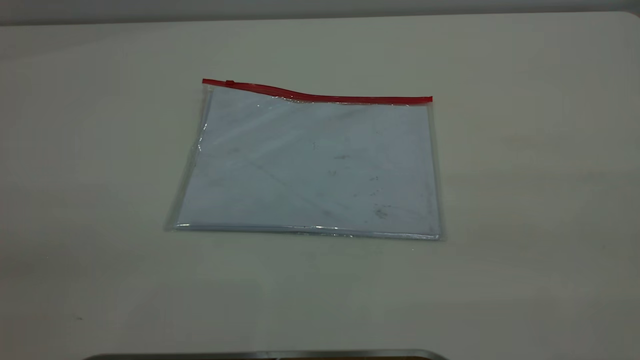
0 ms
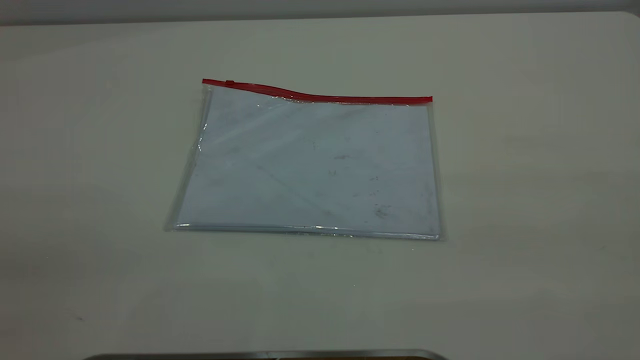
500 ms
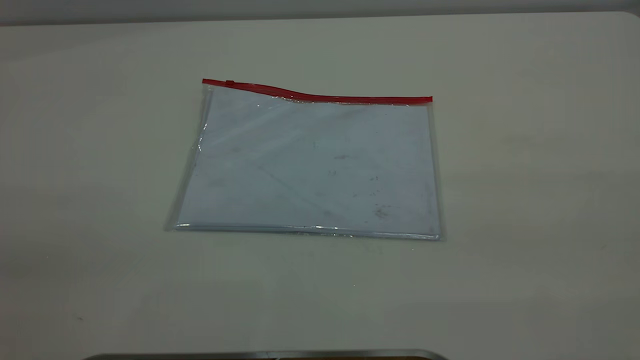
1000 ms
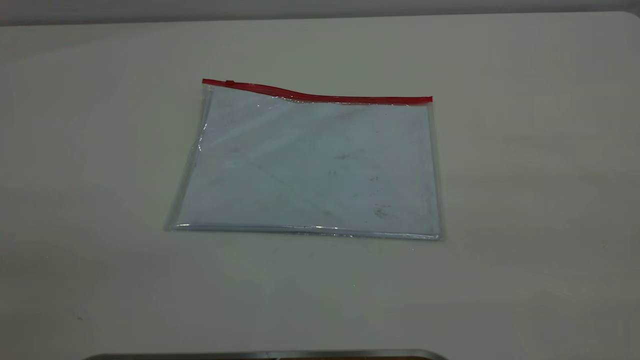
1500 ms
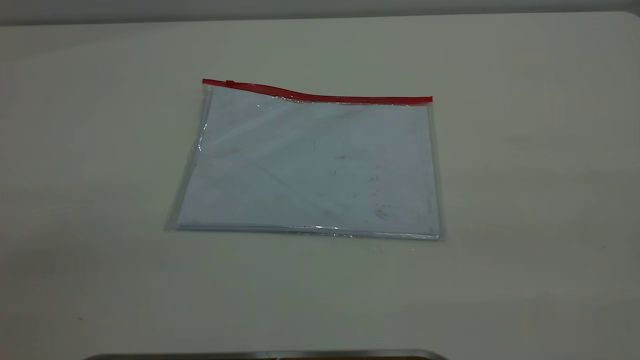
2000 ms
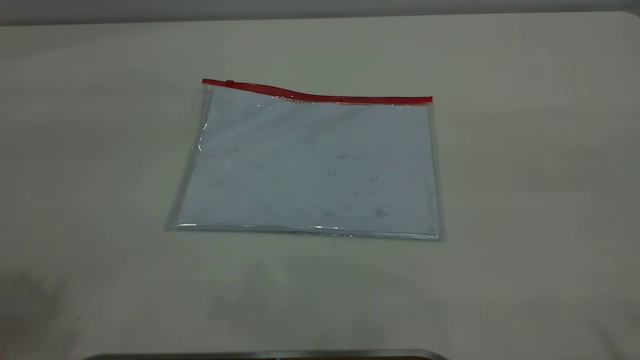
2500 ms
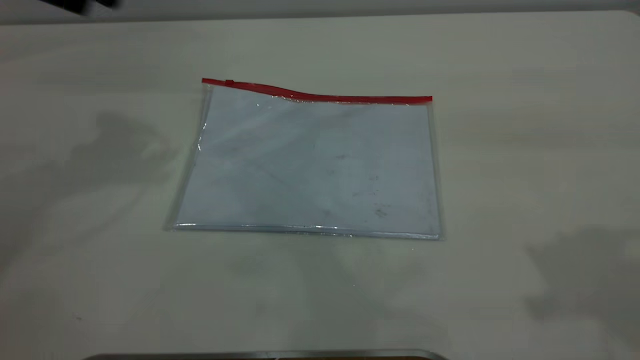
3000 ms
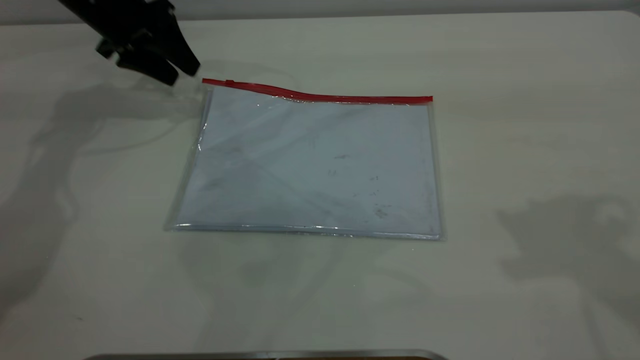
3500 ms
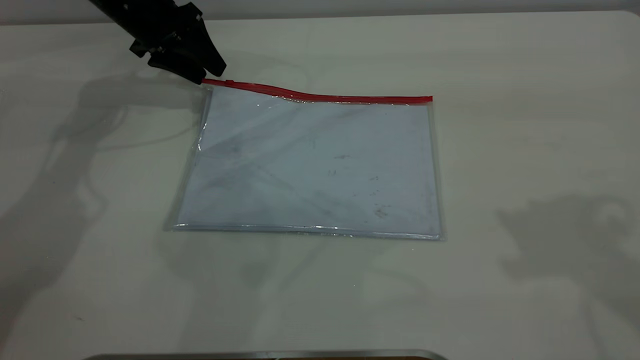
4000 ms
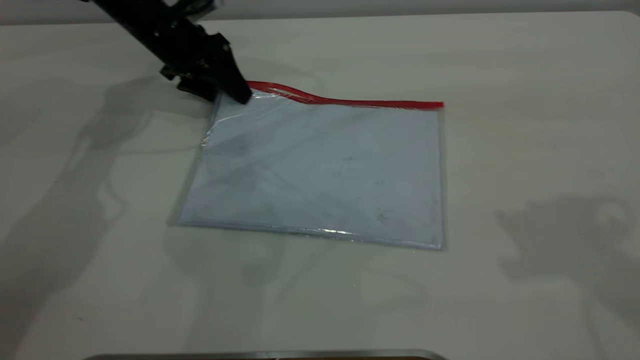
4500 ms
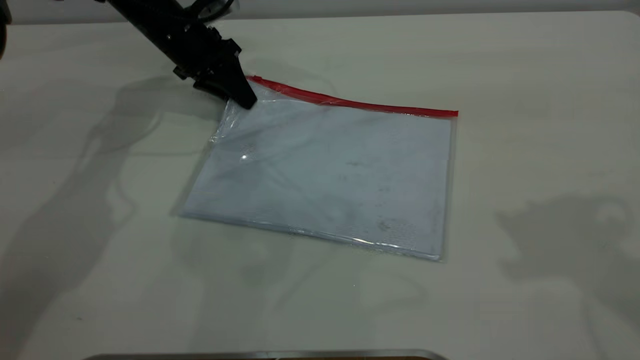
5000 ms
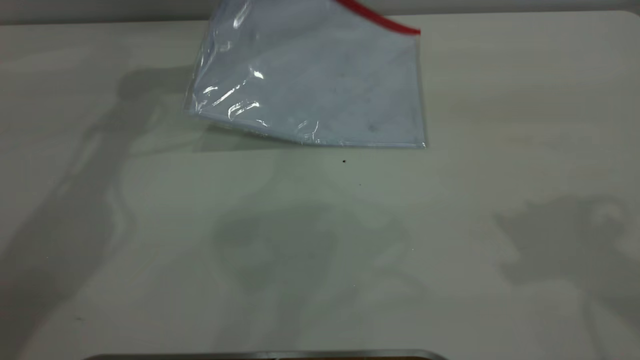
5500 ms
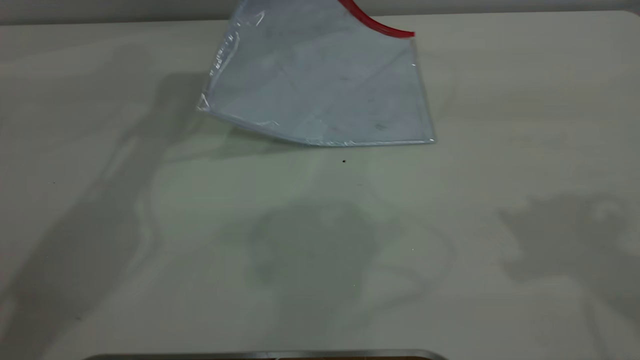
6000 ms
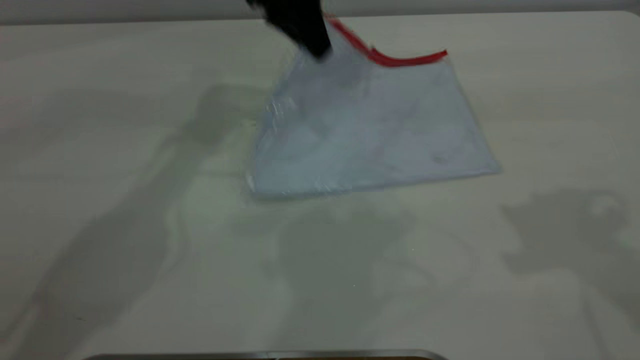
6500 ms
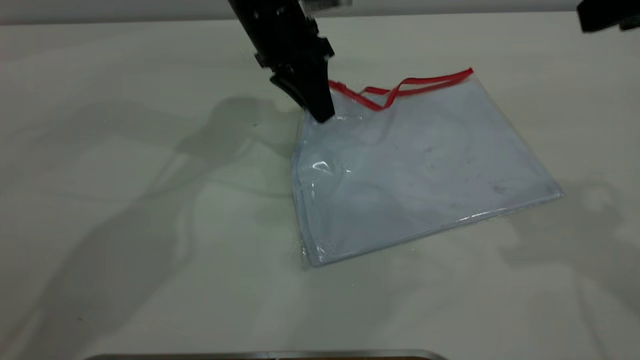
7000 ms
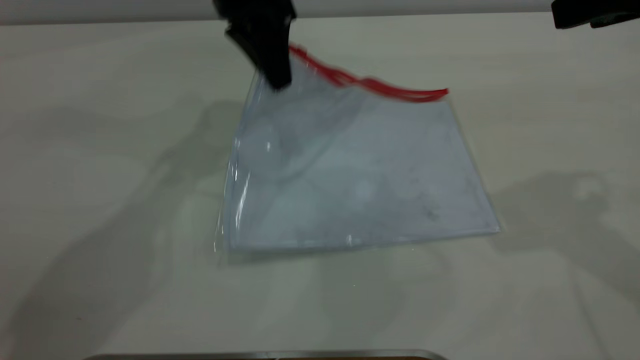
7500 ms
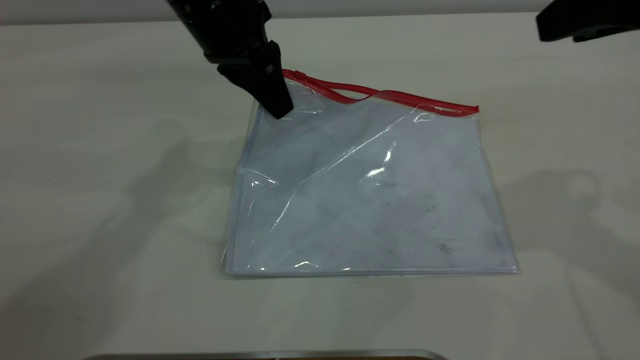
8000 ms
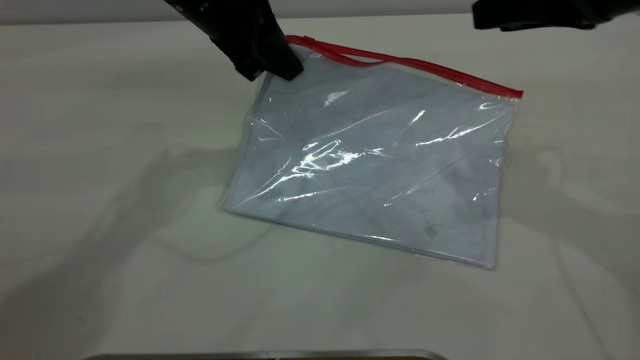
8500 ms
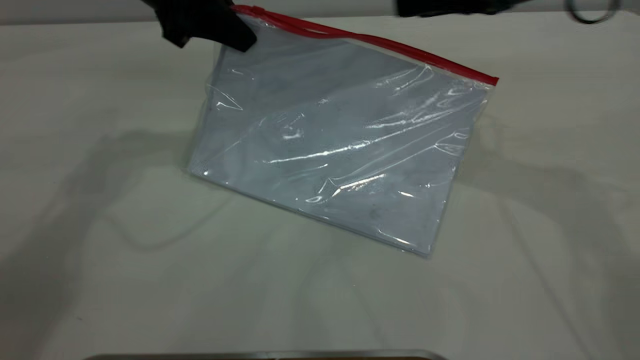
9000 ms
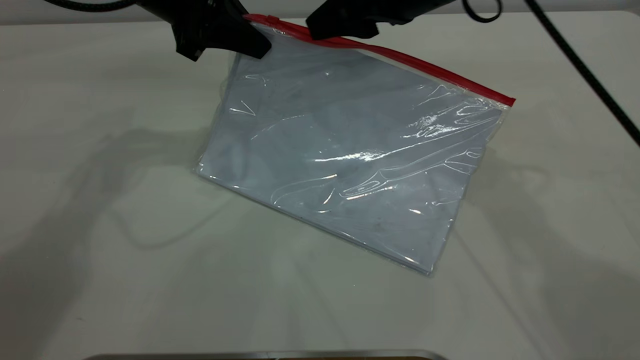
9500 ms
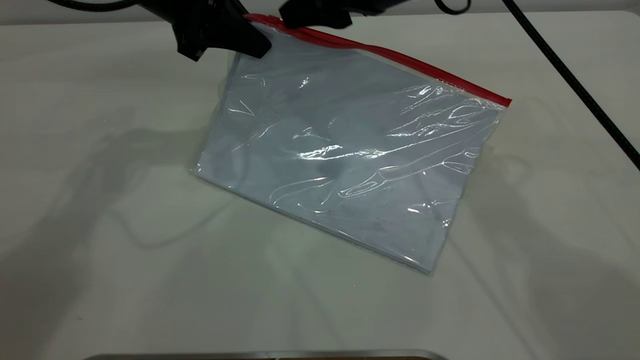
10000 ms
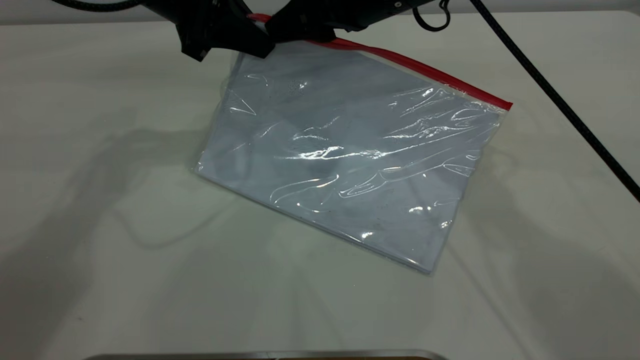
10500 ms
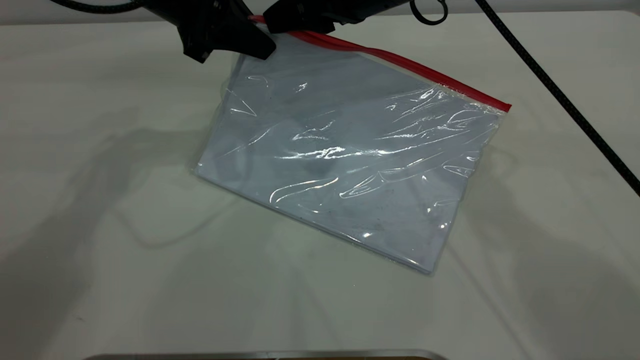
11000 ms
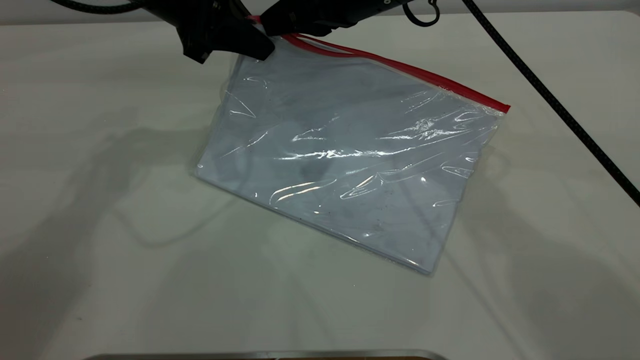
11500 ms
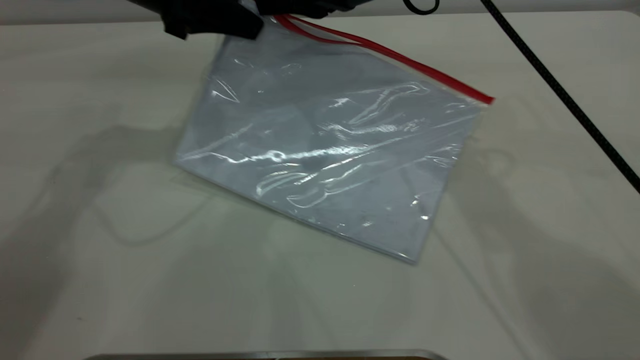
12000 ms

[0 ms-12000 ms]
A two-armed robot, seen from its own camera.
Step, 0 ms to 5000 ms: Pick up the transparent plastic bag with the left gripper.
0 ms to 2000 ms: Neither gripper changes place.
2000 ms to 4000 ms: The left gripper goes about 60 cm forward and downward.
4000 ms to 6000 ms: The left gripper moves upward and to the right, approximately 20 cm, and closes its fingers.
6000 ms to 8000 ms: The left gripper goes about 15 cm backward; the right gripper shifts roughly 5 cm downward.
8000 ms to 10000 ms: The right gripper is displaced to the left and forward by approximately 20 cm, while the left gripper is displaced to the left by roughly 5 cm.
10000 ms to 12000 ms: The right gripper closes its fingers.

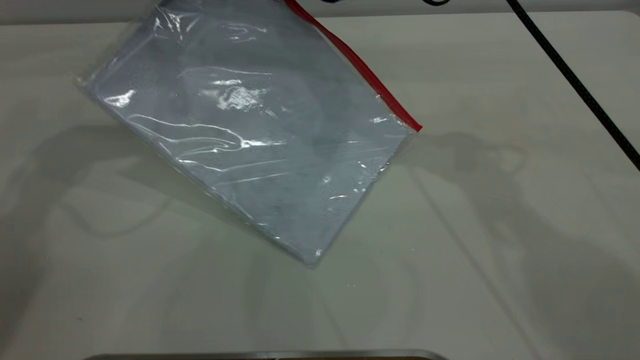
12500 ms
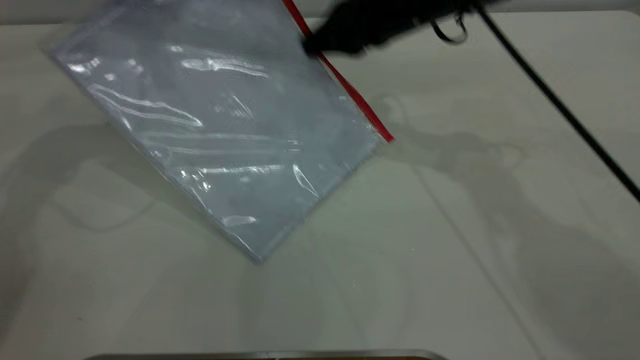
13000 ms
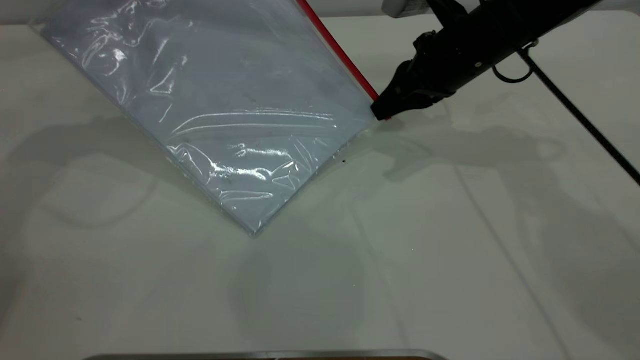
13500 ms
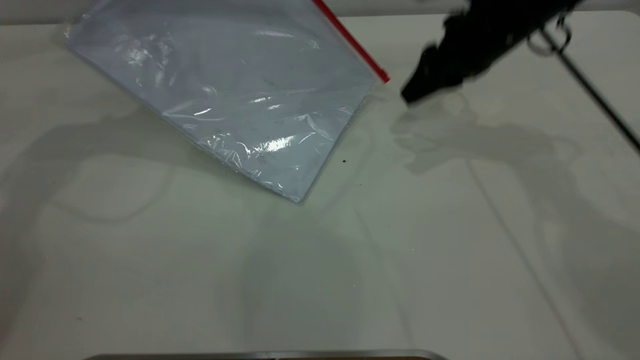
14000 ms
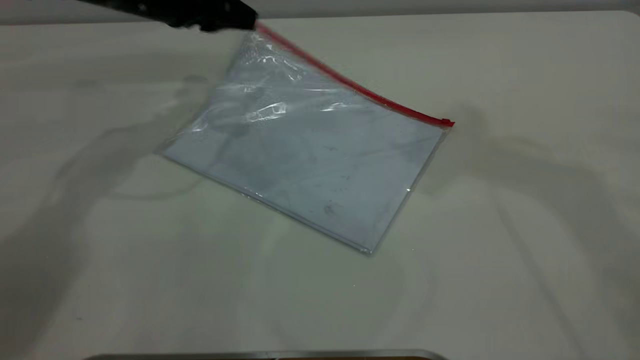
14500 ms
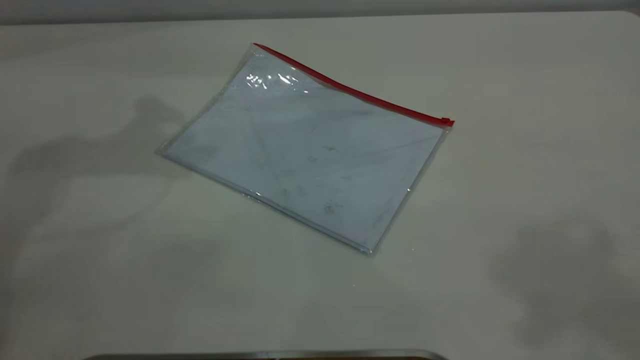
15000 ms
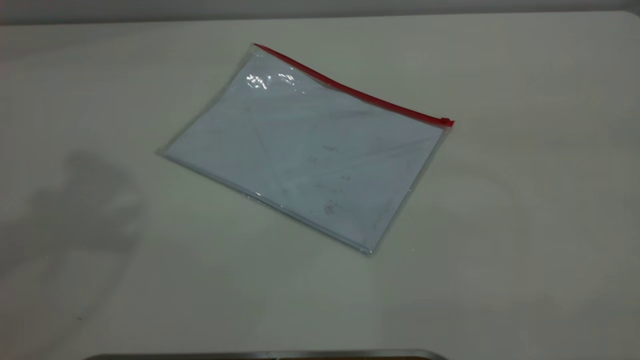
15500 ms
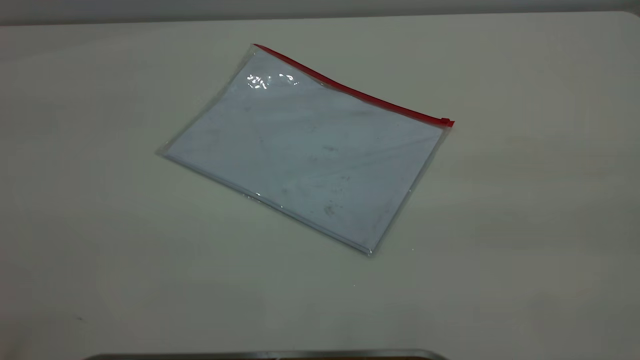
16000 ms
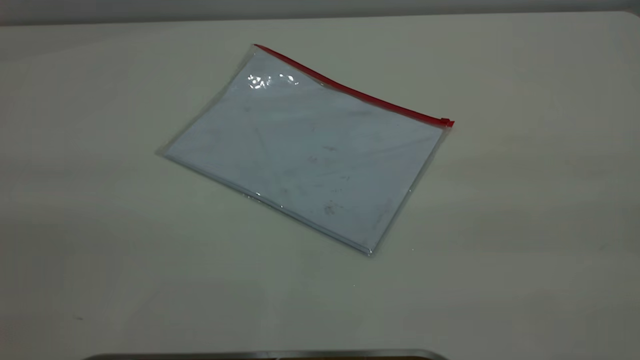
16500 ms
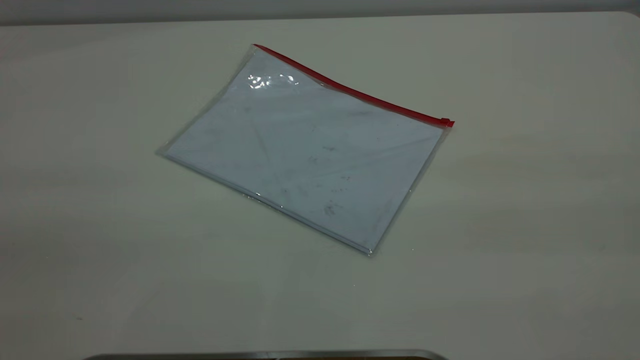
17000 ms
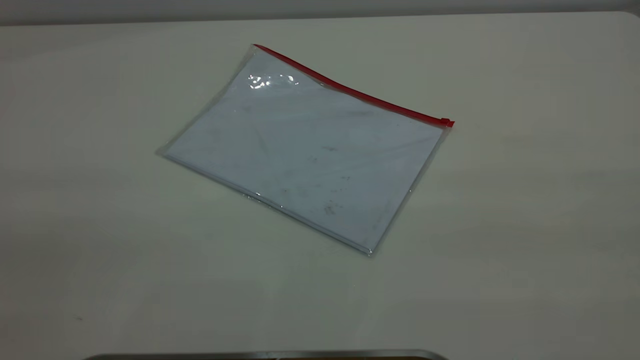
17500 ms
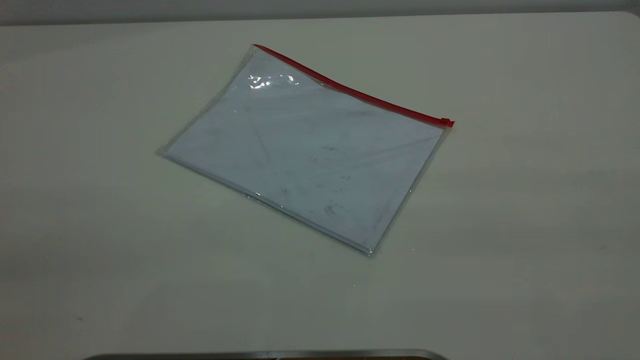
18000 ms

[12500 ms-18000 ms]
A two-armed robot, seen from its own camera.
Step, 14000 ms to 14500 ms: Place the transparent plastic bag.
12500 ms to 14500 ms: The left gripper ends up roughly 5 cm from where it was, and opens up. The right gripper travels upward and to the right by roughly 25 cm, and opens.
14500 ms to 16000 ms: The right gripper heads backward, covering some 30 cm; the left gripper is displaced backward and upward by roughly 50 cm.
